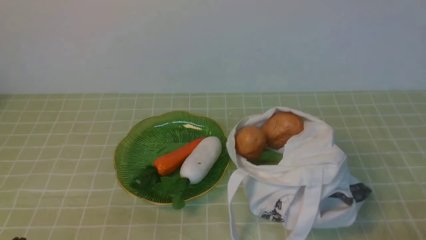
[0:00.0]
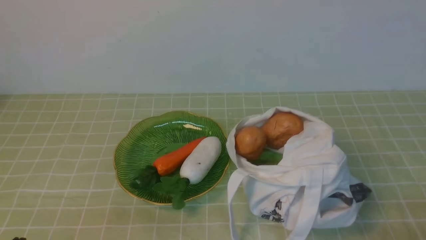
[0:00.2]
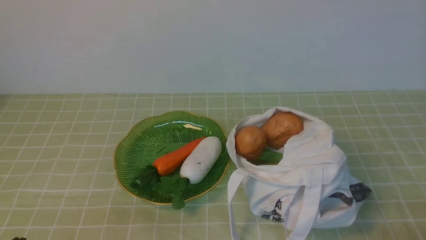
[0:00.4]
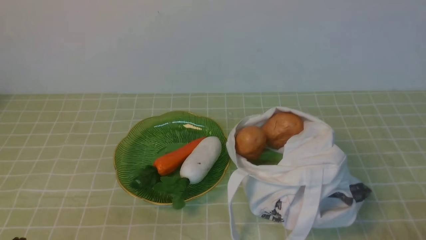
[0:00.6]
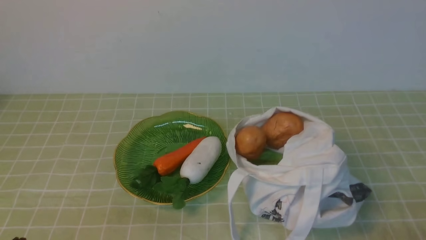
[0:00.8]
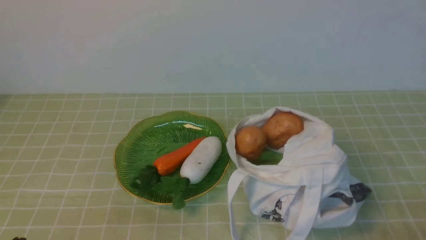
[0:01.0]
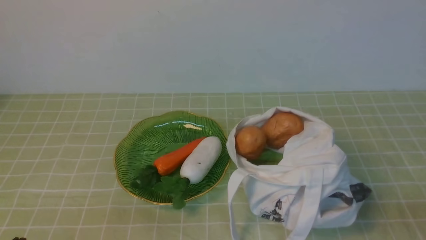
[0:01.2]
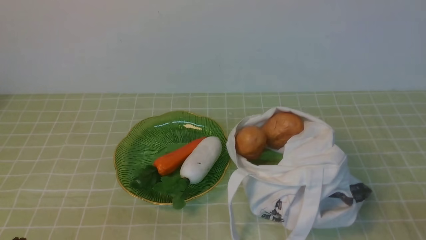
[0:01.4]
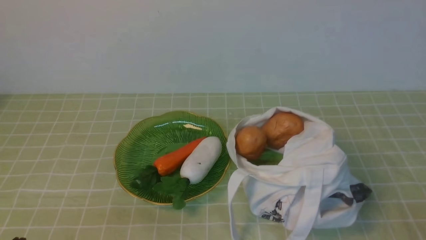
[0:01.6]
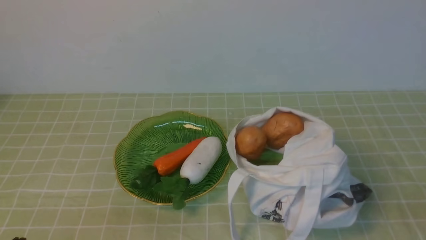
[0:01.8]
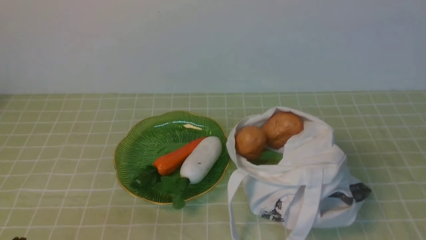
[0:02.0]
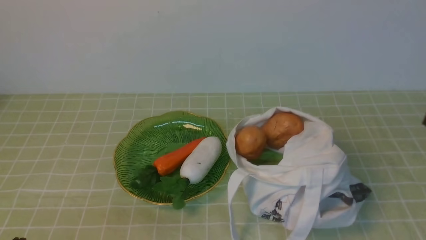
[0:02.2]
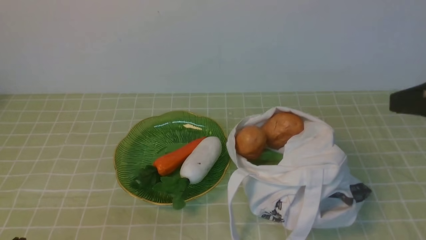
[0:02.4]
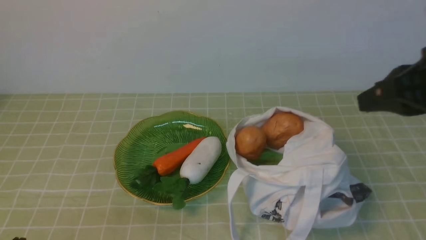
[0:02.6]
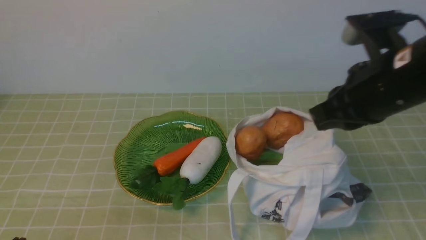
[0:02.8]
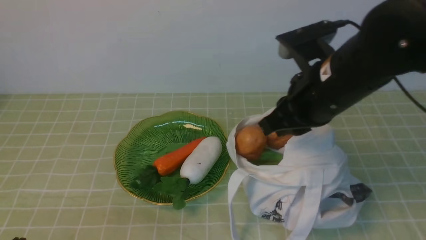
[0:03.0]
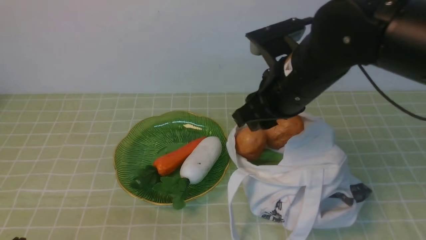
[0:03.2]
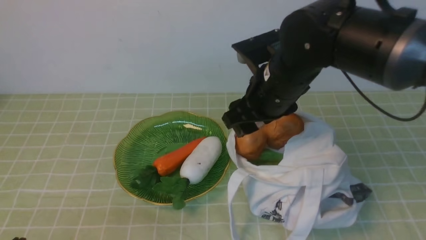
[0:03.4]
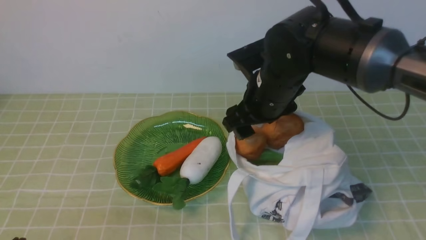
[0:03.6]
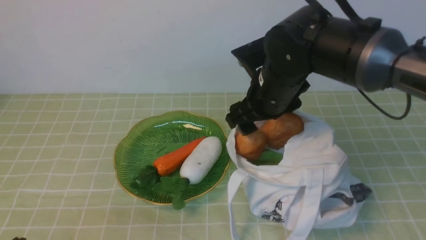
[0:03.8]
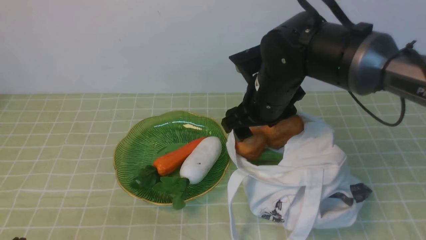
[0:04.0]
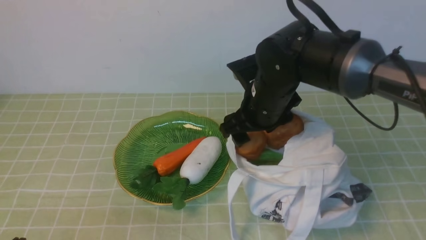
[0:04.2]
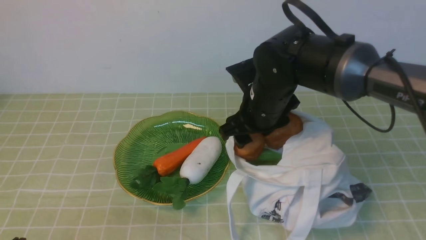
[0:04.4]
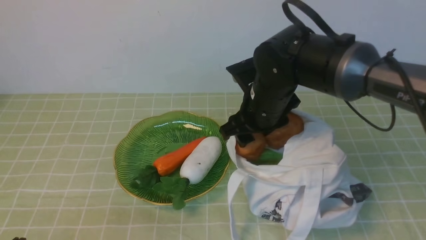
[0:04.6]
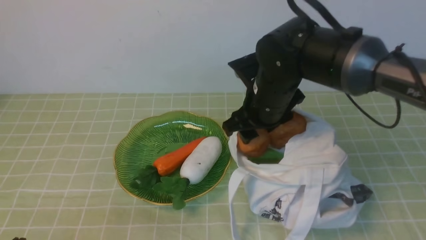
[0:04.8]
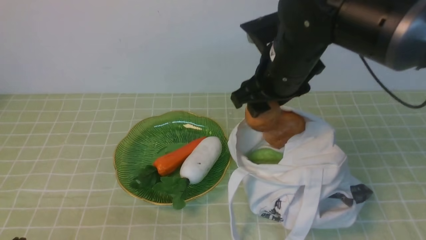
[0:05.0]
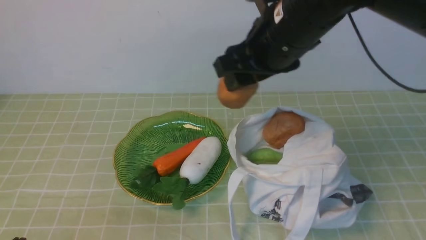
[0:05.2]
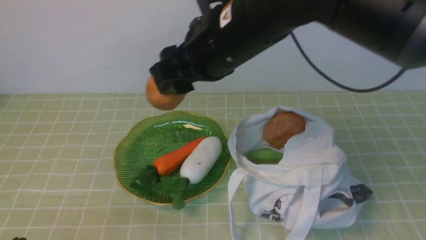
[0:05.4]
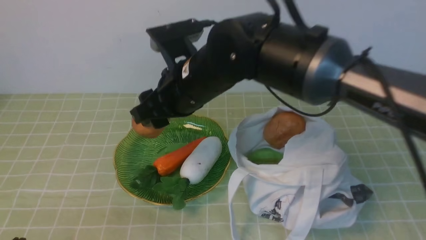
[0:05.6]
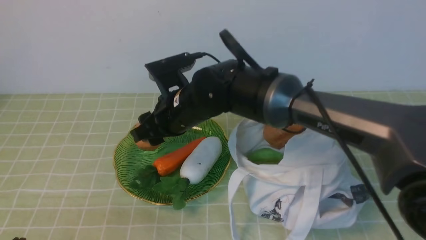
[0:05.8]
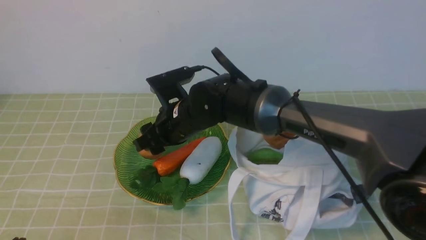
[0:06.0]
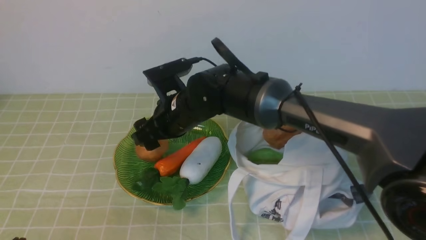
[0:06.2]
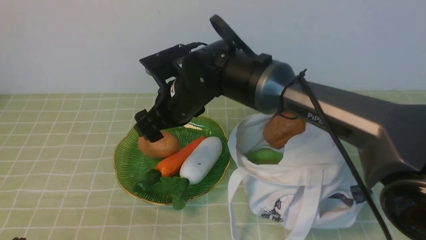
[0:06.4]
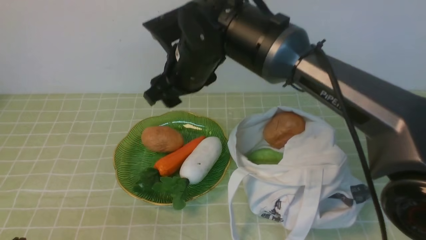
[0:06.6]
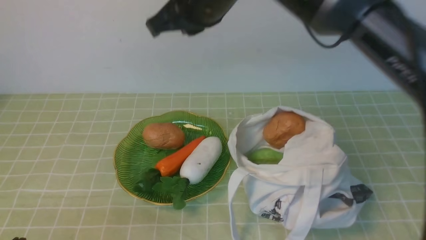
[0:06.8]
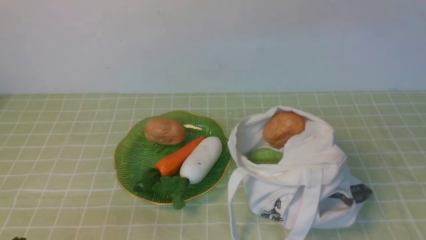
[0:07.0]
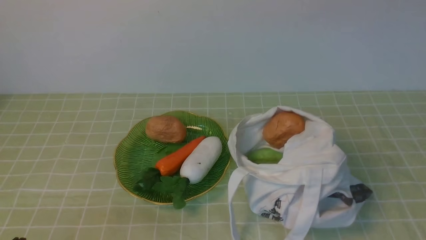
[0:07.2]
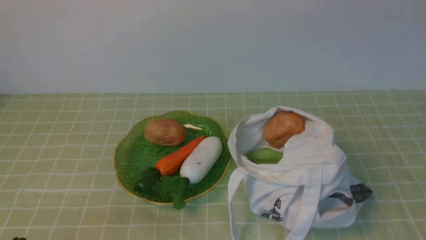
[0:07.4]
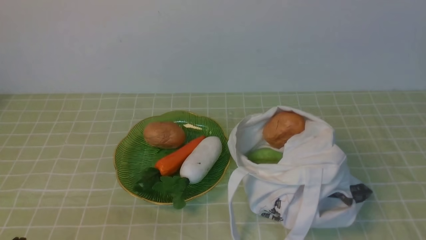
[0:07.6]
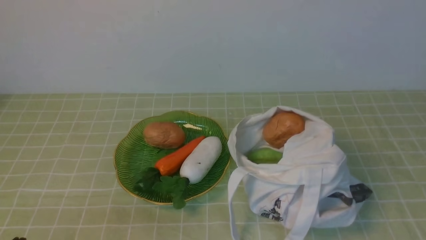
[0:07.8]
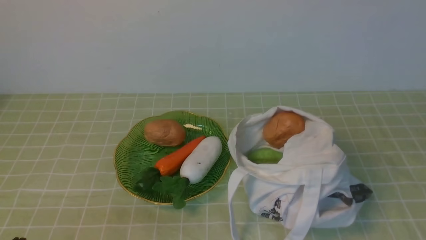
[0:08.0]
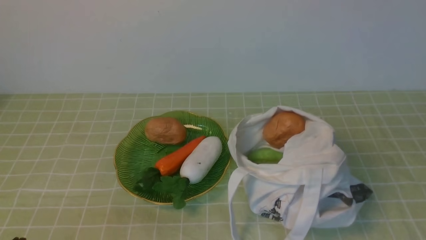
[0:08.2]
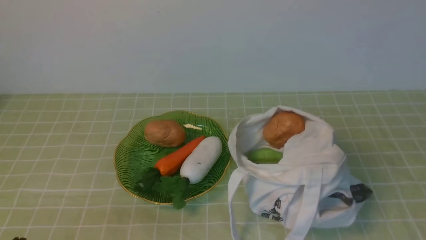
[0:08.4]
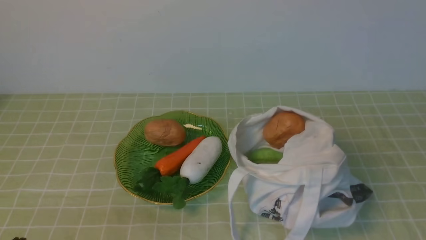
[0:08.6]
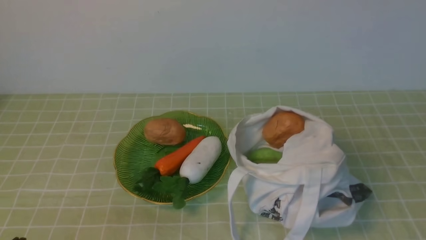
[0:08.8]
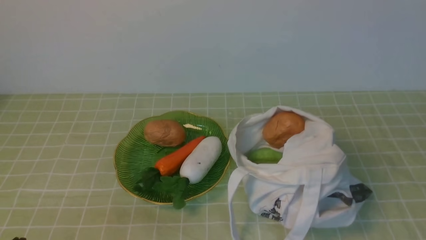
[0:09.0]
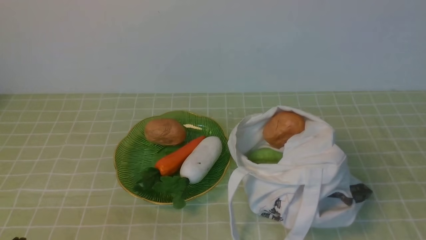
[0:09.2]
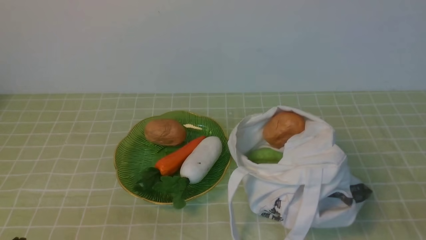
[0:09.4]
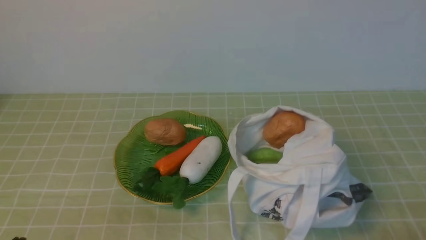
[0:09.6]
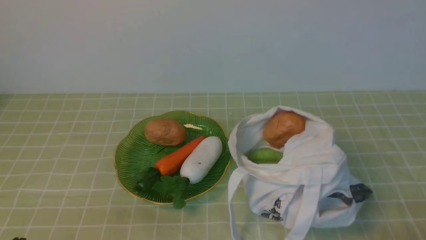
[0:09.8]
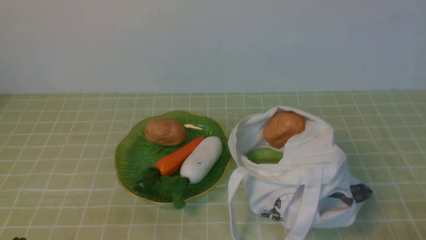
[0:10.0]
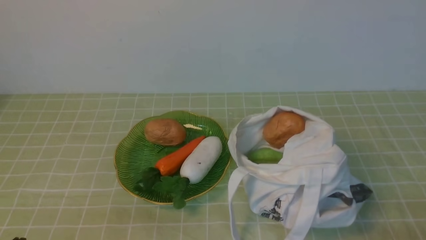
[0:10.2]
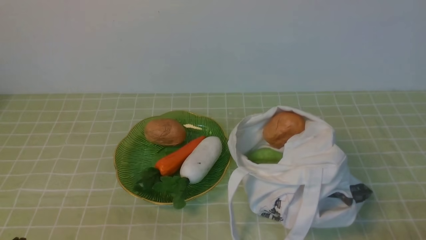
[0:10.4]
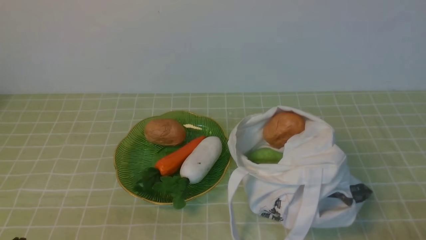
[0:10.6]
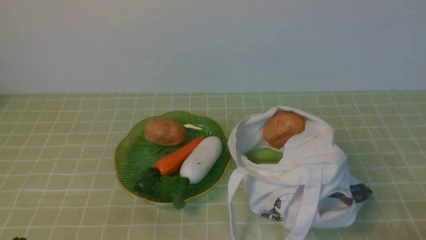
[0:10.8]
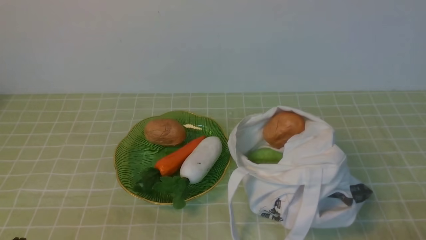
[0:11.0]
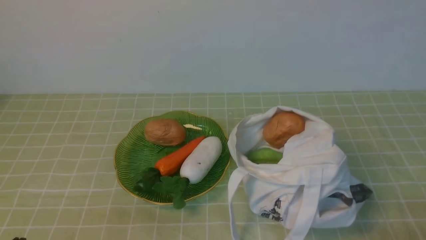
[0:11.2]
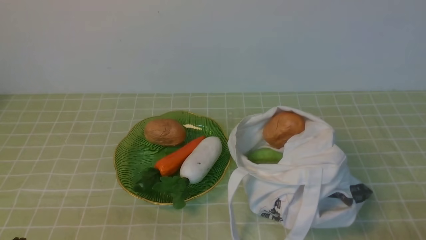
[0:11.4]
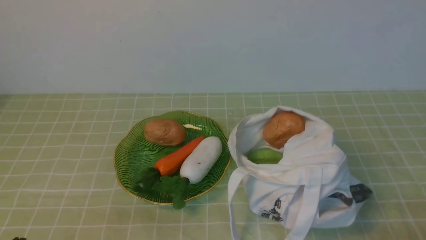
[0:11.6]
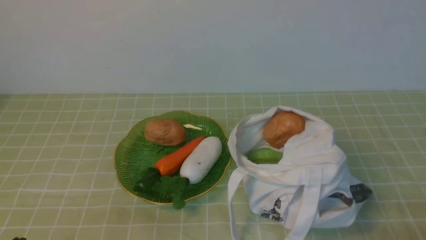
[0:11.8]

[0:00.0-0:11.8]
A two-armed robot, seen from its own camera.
Task of the whole recording: take vegetables from bag on green coffee tablecloth place on plate.
Step, 0:00.0 to 0:04.4: Grasp the potato with right gripper.
Step, 0:04.6 to 0:06.4: Place the potato on the plate with right gripper.
0:01.4 to 0:03.0: The right gripper shifts approximately 30 cm forward, upward and to the left.
0:03.0 to 0:04.4: The right gripper is displaced to the left, downward and forward by approximately 15 cm, and opens its fingers.
0:04.4 to 0:06.0: The right gripper travels to the left by some 10 cm.
0:06.0 to 0:07.4: The right gripper moves upward, to the right and backward, about 40 cm, and closes its fingers.
0:10.4 to 0:11.8: Both grippers stay put.
